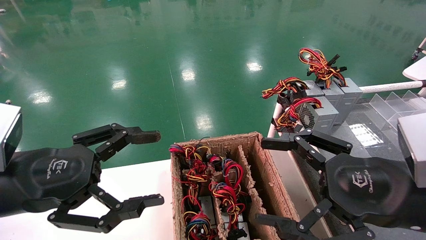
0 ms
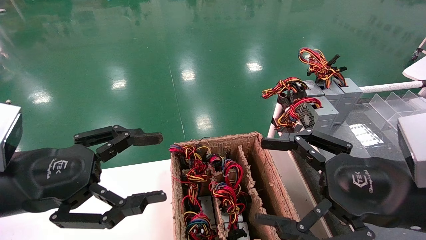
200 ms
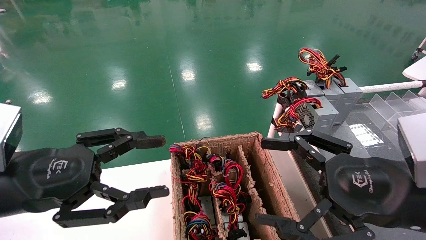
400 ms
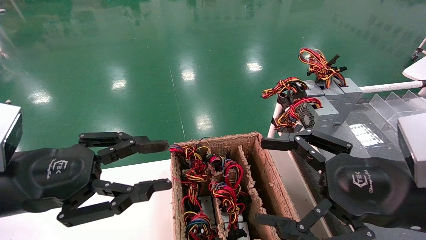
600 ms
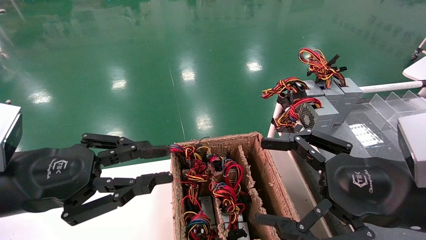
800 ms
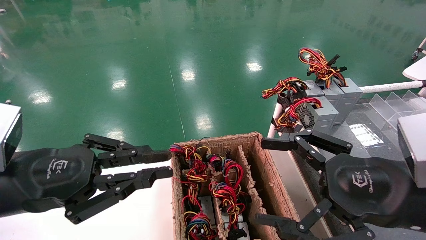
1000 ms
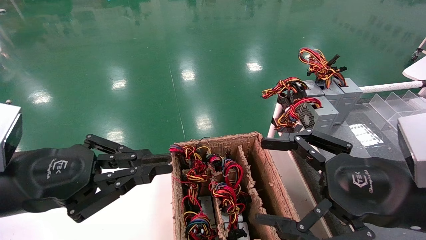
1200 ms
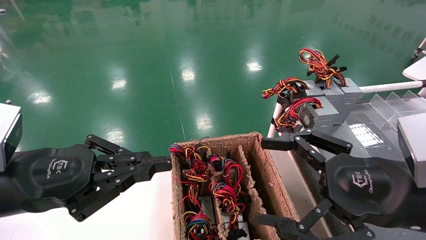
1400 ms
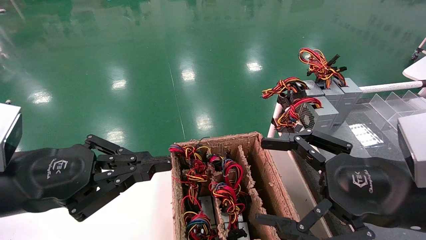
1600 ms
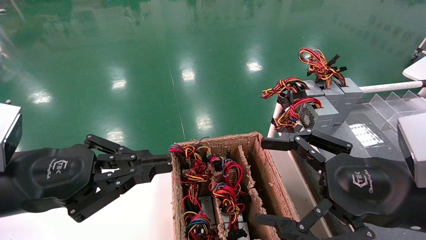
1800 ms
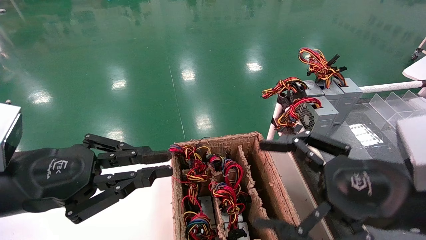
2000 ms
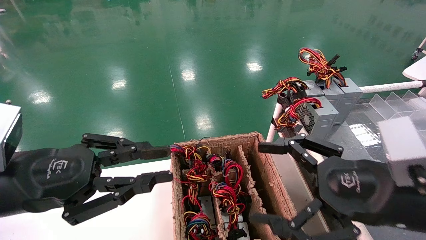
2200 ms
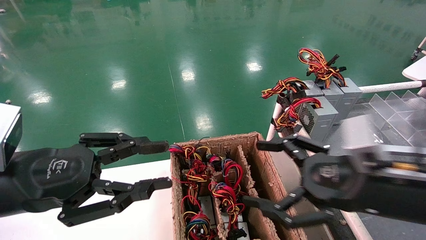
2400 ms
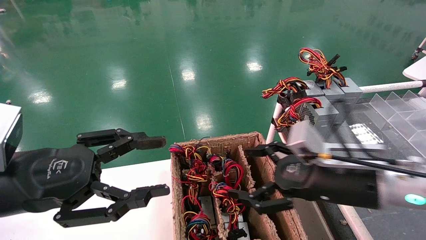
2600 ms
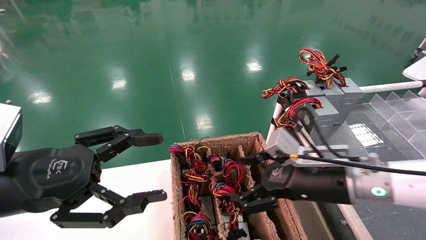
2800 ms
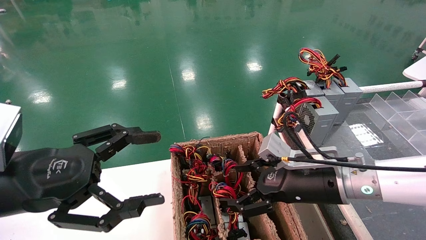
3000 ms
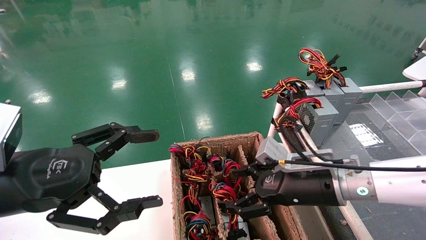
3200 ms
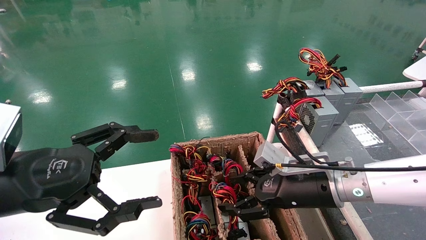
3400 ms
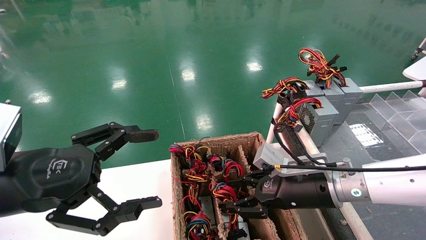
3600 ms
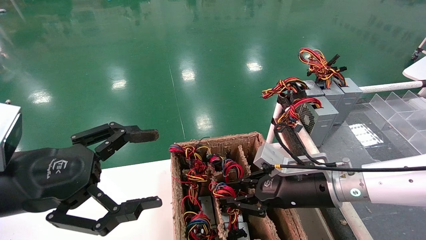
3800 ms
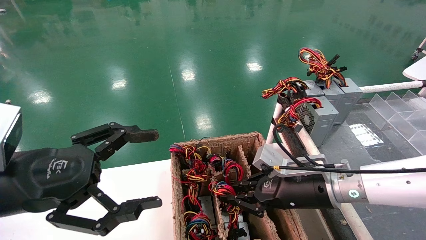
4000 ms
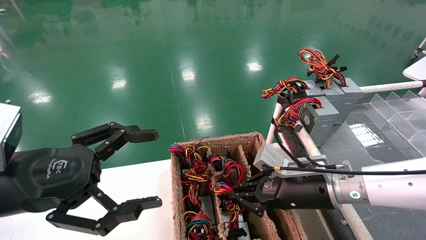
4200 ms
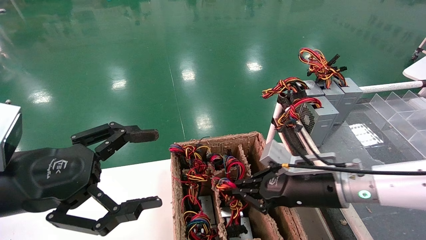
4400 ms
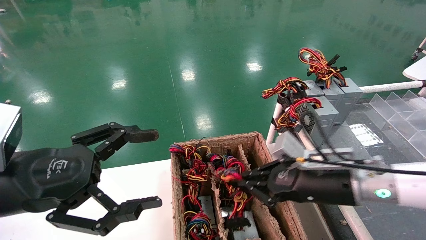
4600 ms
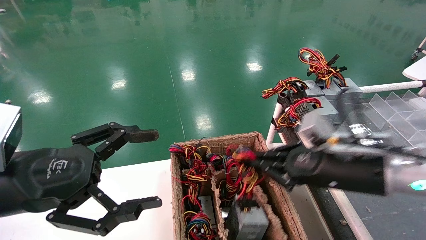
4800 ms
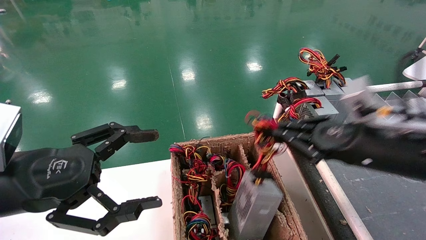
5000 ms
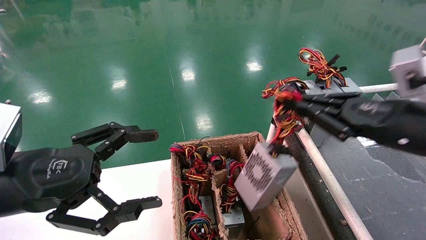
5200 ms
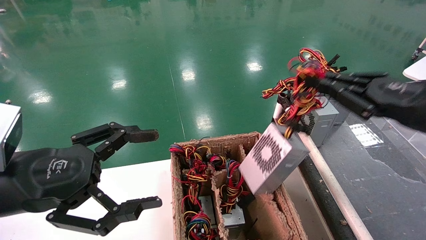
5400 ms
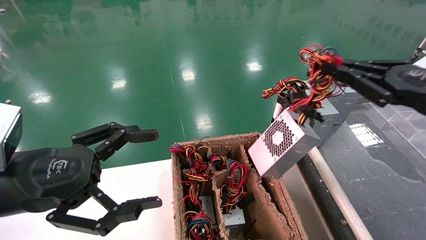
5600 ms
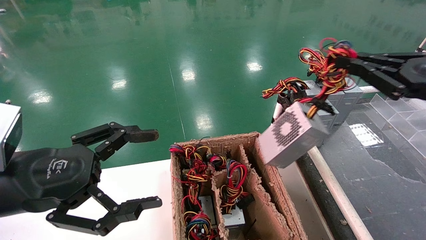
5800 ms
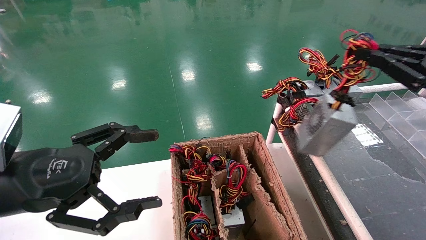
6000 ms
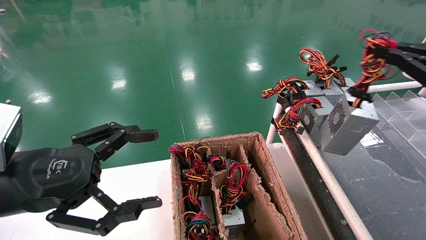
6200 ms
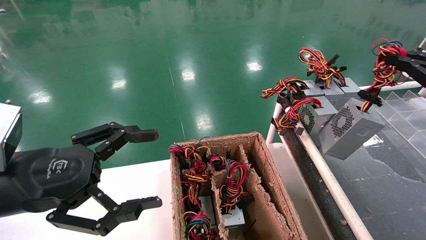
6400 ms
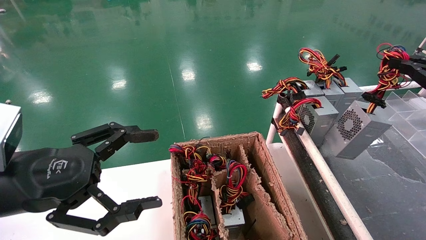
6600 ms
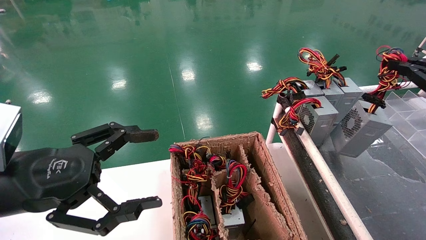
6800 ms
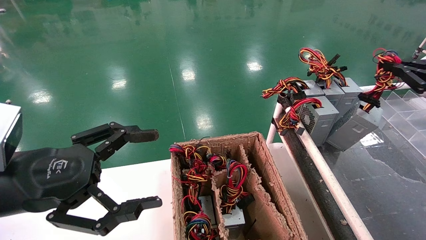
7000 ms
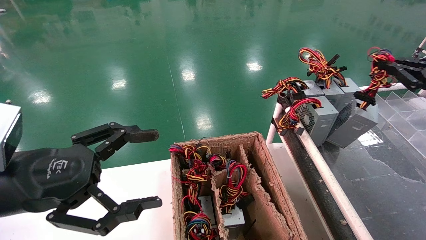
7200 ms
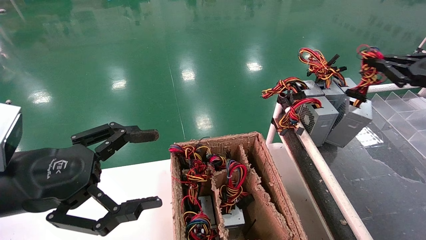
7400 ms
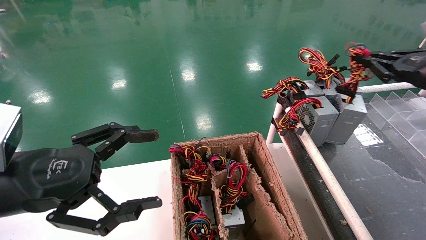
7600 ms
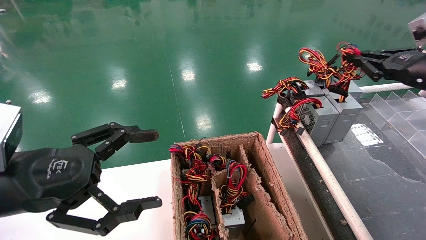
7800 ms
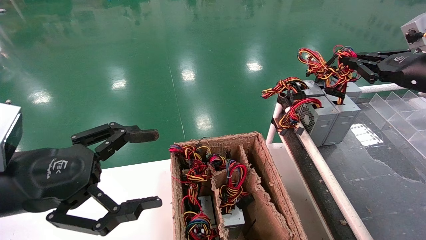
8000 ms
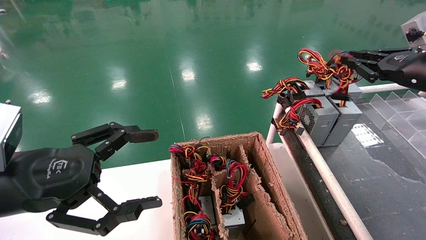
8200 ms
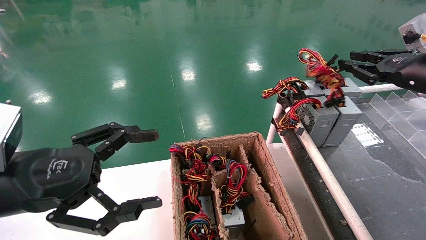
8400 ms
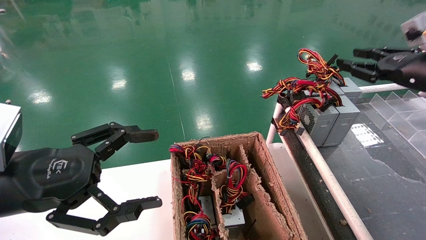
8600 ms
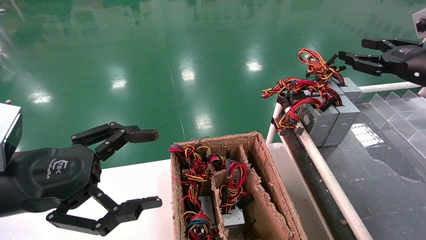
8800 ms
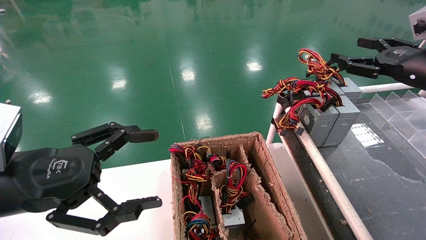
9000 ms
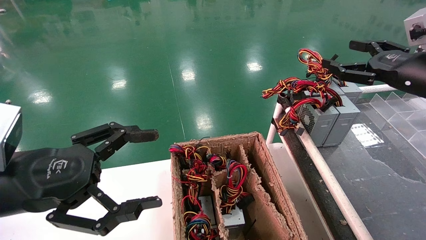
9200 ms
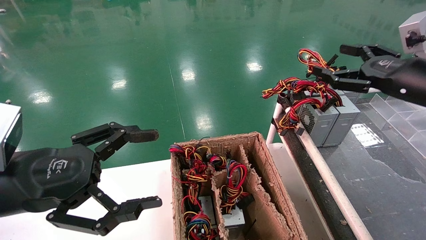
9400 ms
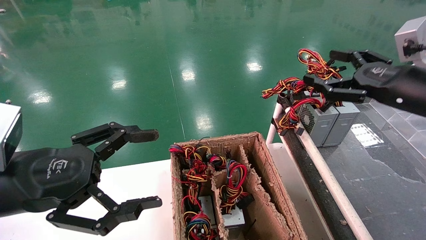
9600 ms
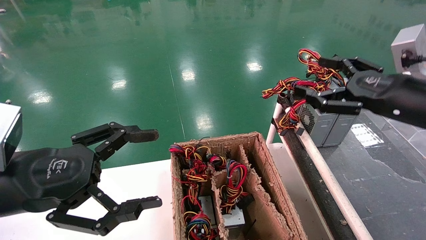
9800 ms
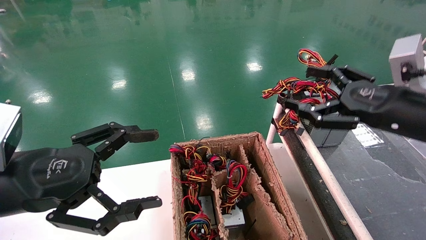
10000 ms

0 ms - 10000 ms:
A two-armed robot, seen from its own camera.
Step, 1400 ms - 4400 ms: Grab and lift the power supply from the large box.
Step, 4600 ms - 8400 ms: Place the power supply on the operating table.
0 ms - 1400 ms: The left gripper closes.
1400 ms - 2800 ms: The left gripper opens its fingers. The right gripper travels forward, to the left and downward by roughly 15 cm.
2800 ms - 4200 ms: The left gripper opens up, while the right gripper closes its fingers.
4200 ms - 5800 ms: The right gripper travels to the right, upward and backward by about 25 cm.
5800 ms - 7200 ms: The right gripper heads to the right and forward, covering about 10 cm.
7200 ms - 8600 ms: The right gripper moves about 5 cm.
8600 ms - 10000 ms: The right gripper is displaced to the left and backward by some 15 cm, and opens.

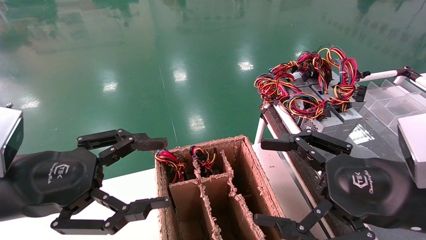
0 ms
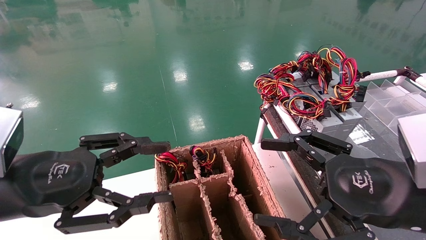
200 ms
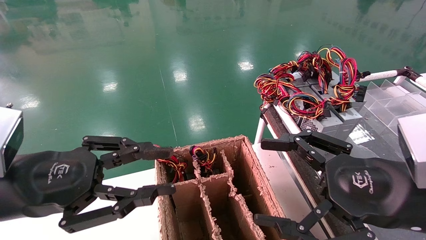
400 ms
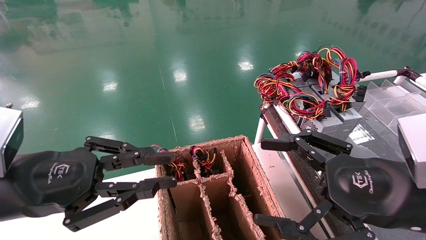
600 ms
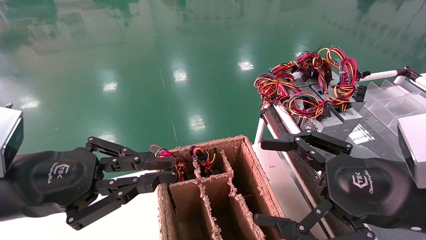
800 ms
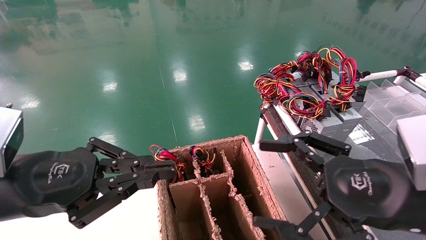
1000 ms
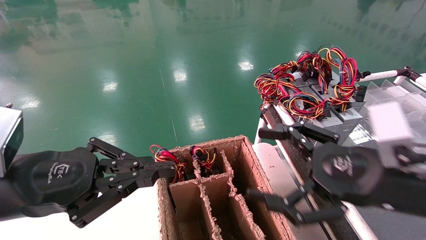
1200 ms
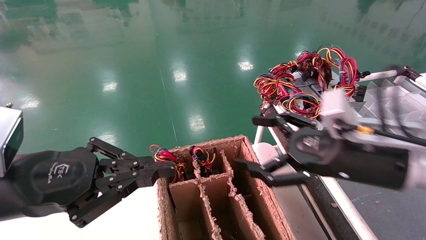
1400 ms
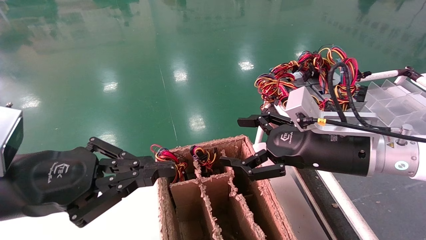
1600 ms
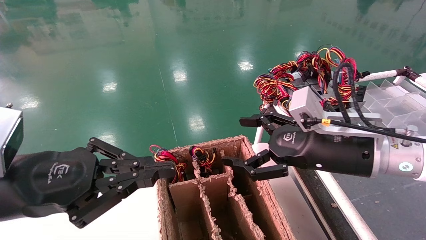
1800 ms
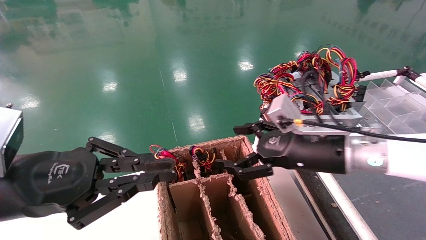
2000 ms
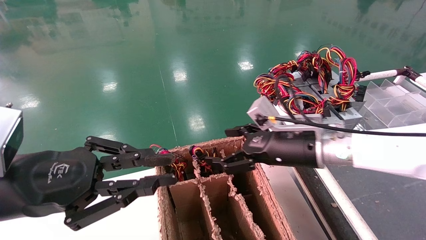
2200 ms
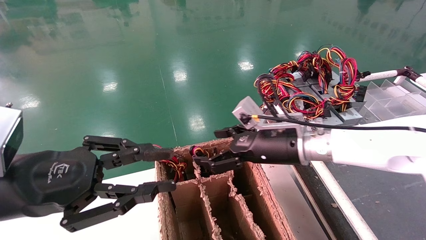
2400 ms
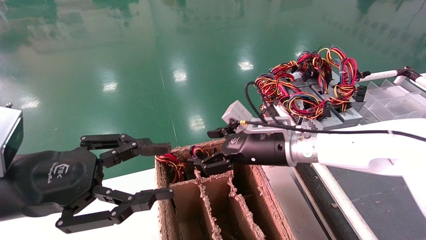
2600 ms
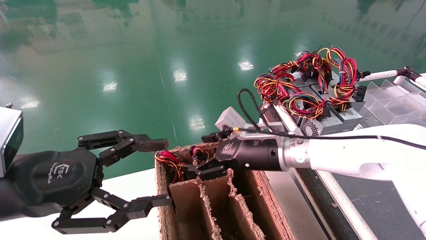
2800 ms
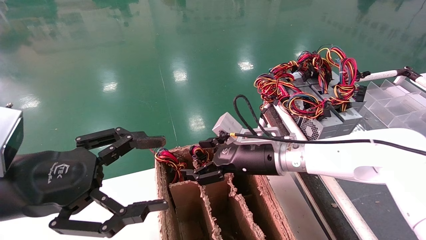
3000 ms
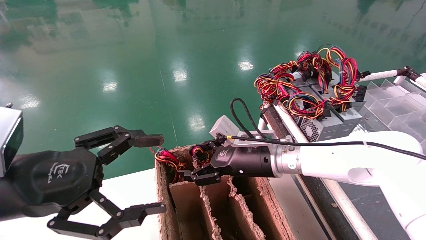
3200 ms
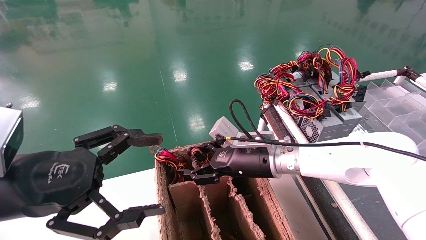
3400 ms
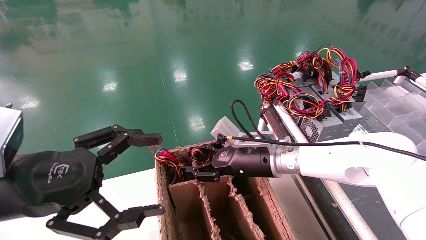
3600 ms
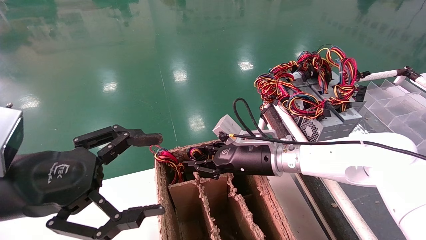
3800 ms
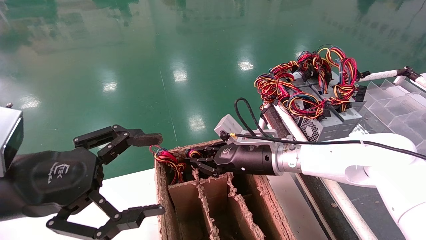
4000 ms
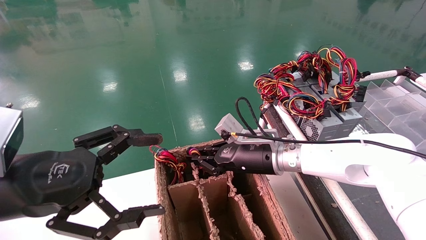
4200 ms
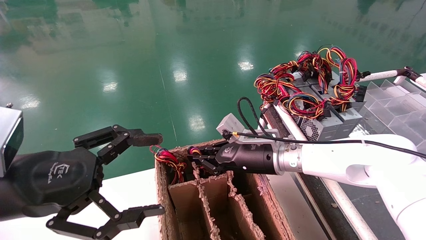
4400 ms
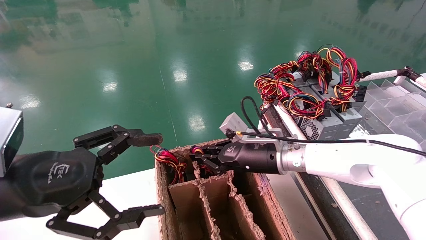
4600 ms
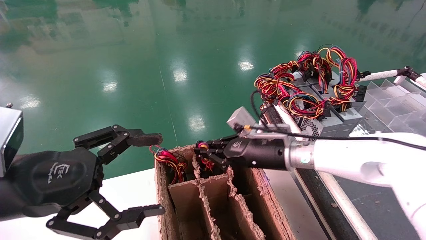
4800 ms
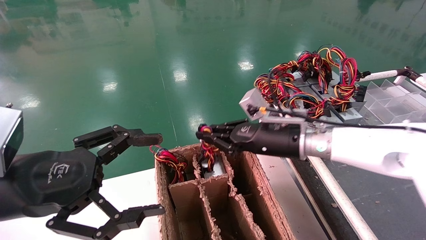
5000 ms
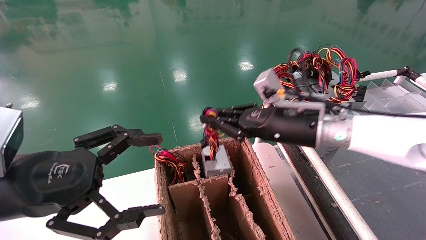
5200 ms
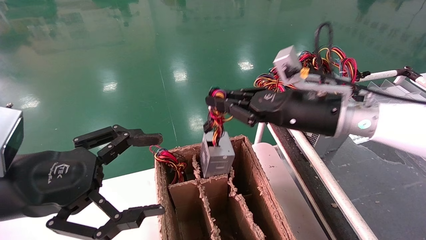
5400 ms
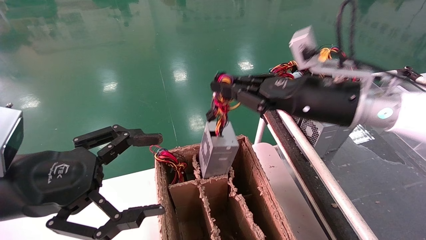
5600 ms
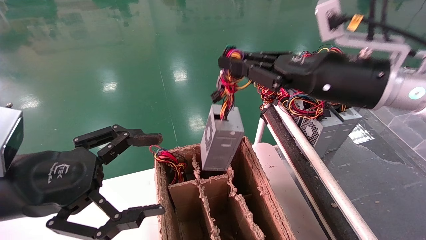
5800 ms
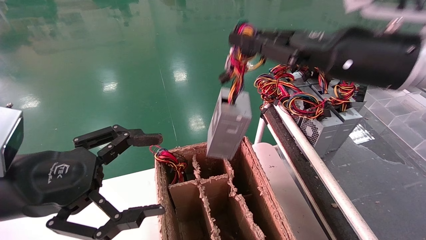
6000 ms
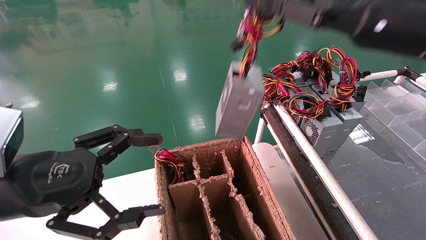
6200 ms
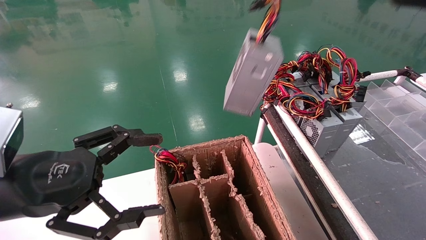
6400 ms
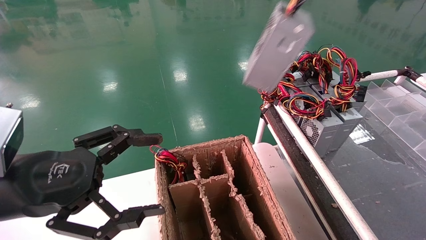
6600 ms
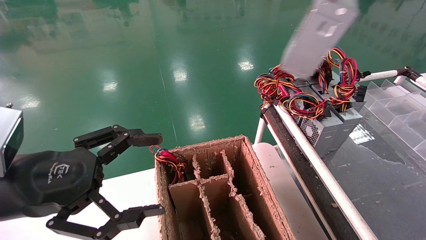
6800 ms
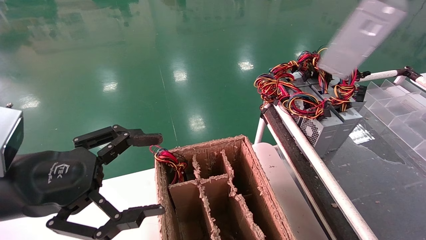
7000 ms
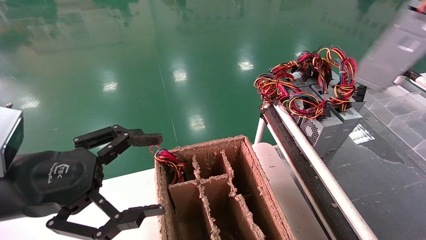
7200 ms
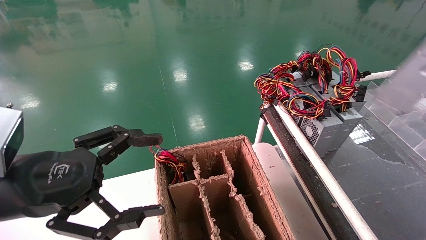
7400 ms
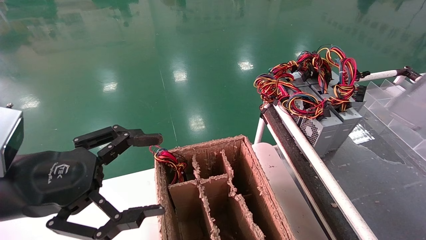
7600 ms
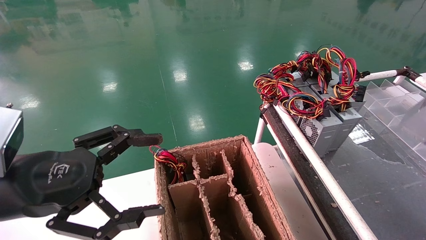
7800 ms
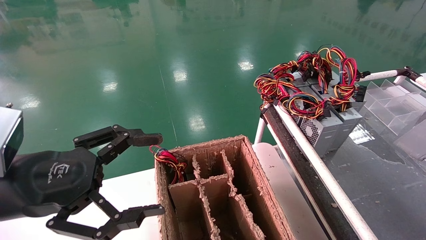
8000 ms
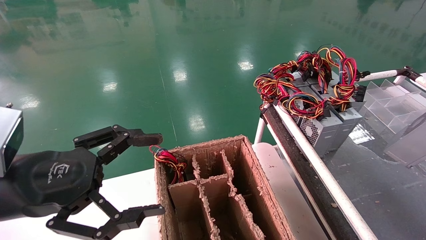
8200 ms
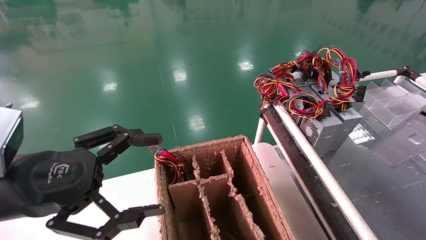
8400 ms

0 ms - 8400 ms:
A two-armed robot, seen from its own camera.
Step, 1200 ms - 4600 ms: Grab and lift the power supply from the large box.
0 ms - 1400 ms: The right gripper heads forward, covering about 10 cm. Meanwhile the left gripper closes its fingers.
1400 ms - 2800 ms: The left gripper opens its fingers. Meanwhile the right gripper moves to the left, forward and downward, about 20 cm.
2800 ms - 4200 ms: The right gripper closes its fingers. Meanwhile the left gripper opens.
4200 ms - 5600 ms: The right gripper moves upward, to the right and backward, about 20 cm.
5600 ms - 7000 ms: The right gripper shifts approximately 30 cm to the right, upward and backward.
7000 ms - 8400 ms: The right gripper shifts approximately 20 cm downward and to the right.
